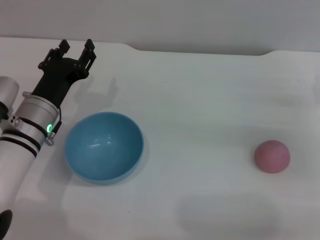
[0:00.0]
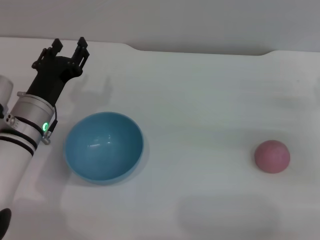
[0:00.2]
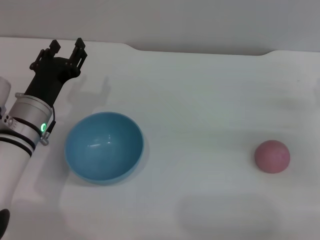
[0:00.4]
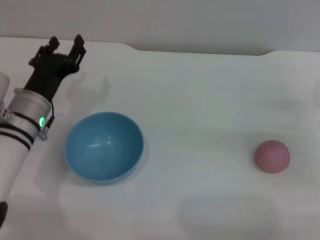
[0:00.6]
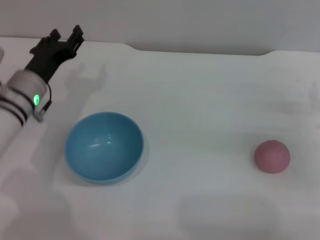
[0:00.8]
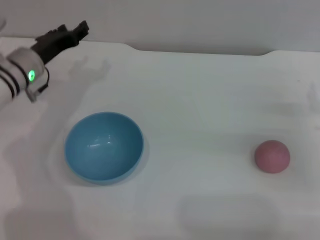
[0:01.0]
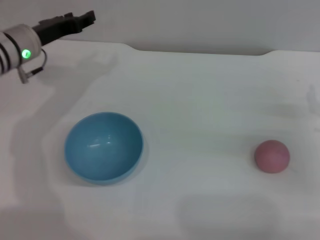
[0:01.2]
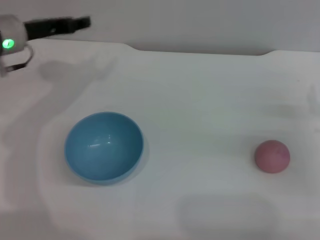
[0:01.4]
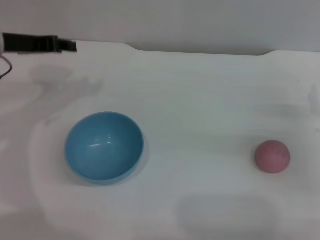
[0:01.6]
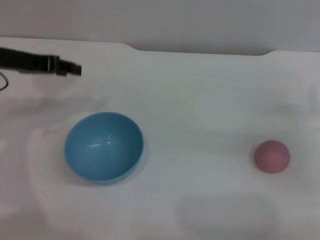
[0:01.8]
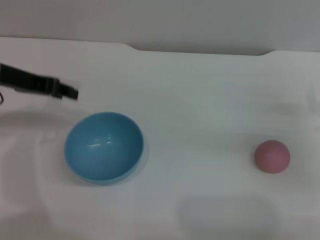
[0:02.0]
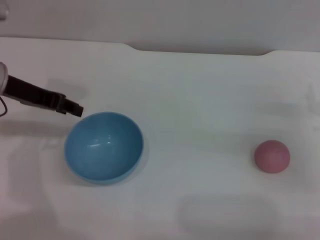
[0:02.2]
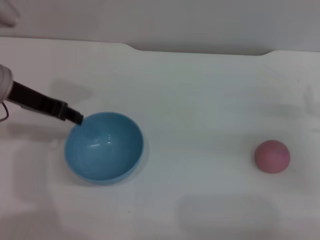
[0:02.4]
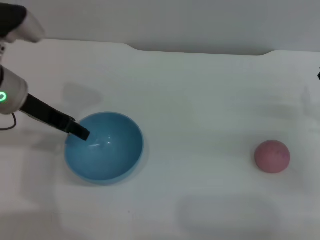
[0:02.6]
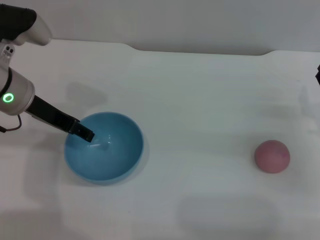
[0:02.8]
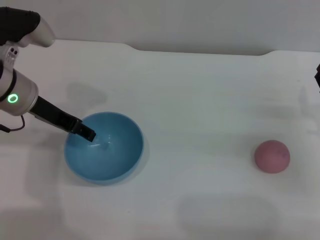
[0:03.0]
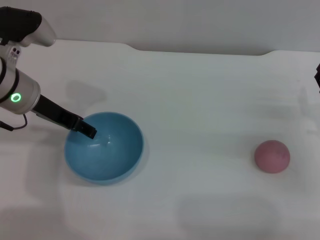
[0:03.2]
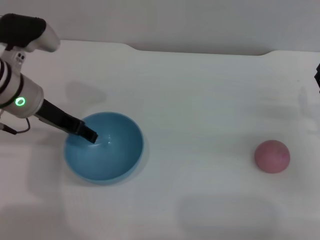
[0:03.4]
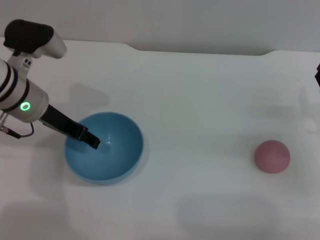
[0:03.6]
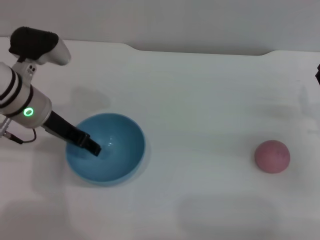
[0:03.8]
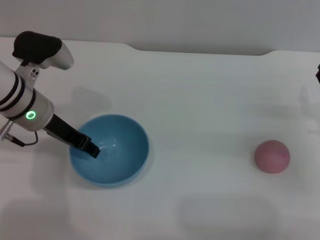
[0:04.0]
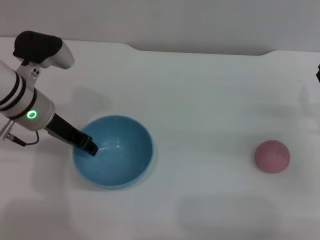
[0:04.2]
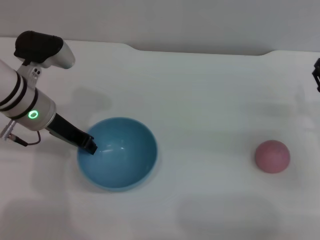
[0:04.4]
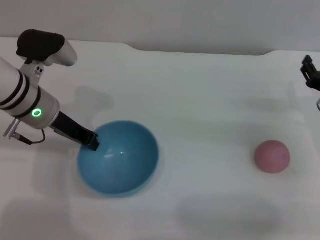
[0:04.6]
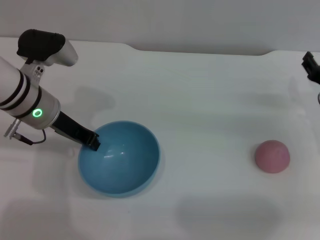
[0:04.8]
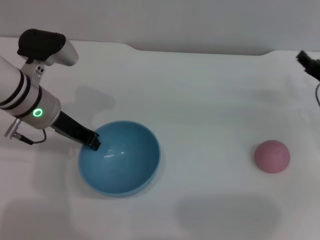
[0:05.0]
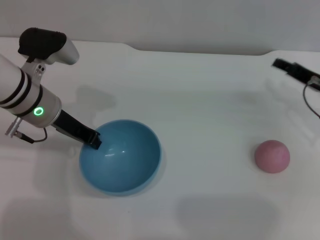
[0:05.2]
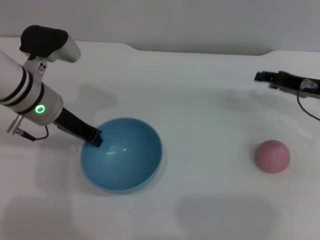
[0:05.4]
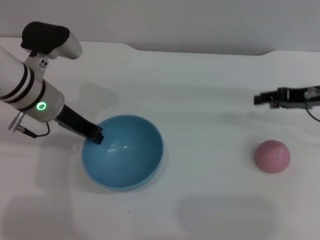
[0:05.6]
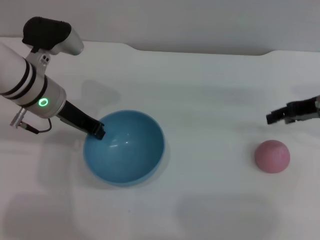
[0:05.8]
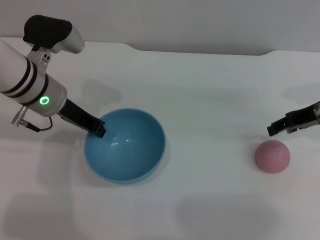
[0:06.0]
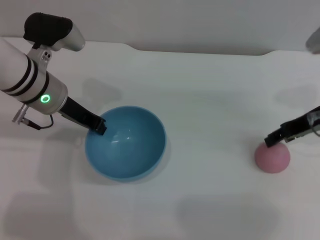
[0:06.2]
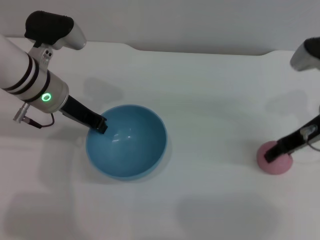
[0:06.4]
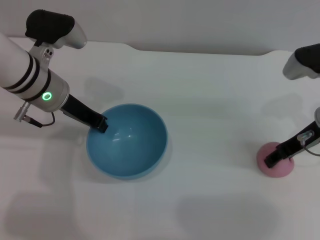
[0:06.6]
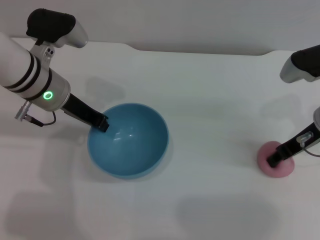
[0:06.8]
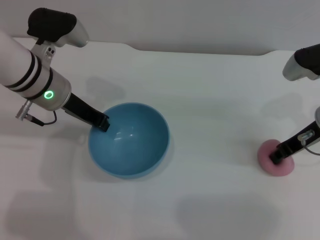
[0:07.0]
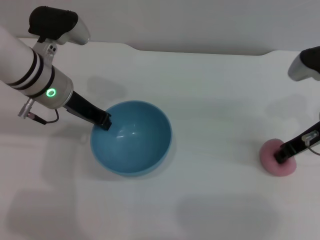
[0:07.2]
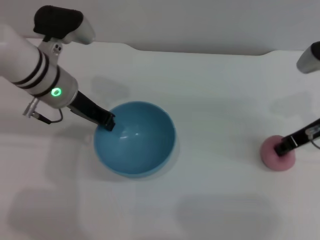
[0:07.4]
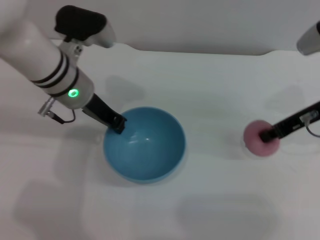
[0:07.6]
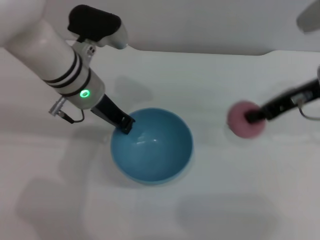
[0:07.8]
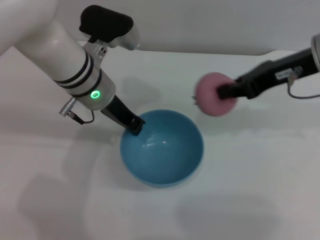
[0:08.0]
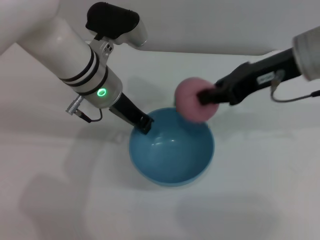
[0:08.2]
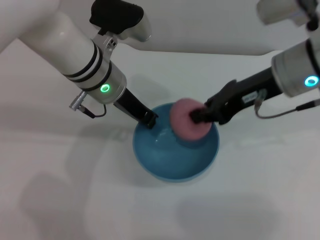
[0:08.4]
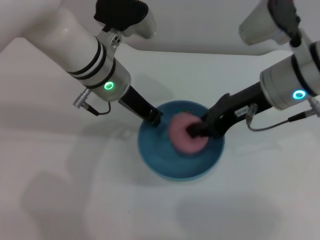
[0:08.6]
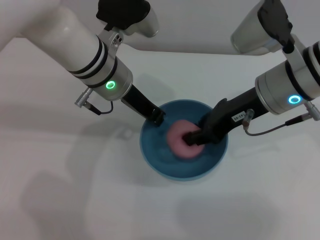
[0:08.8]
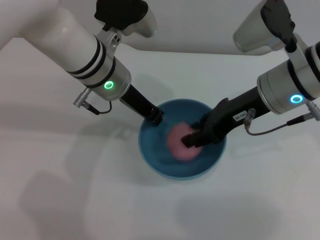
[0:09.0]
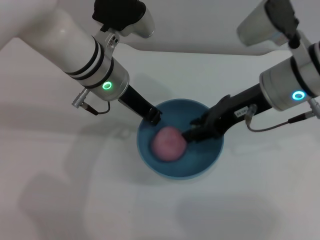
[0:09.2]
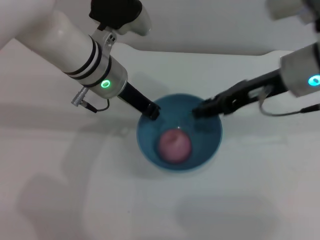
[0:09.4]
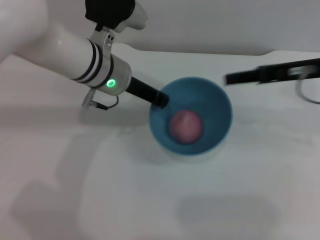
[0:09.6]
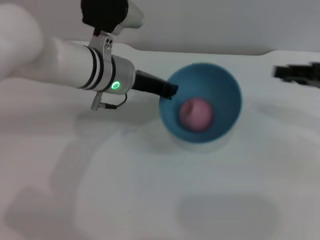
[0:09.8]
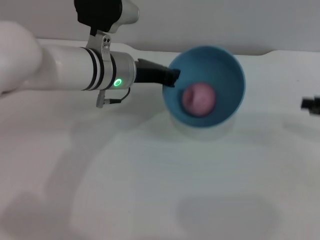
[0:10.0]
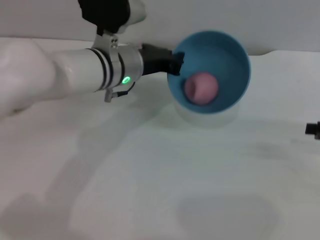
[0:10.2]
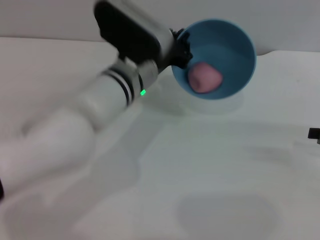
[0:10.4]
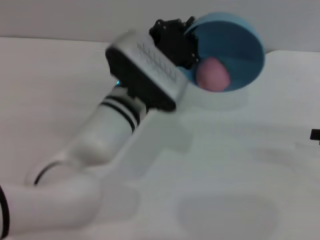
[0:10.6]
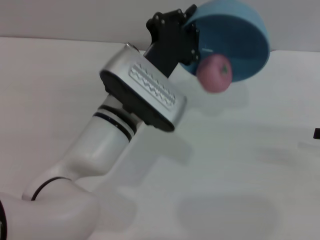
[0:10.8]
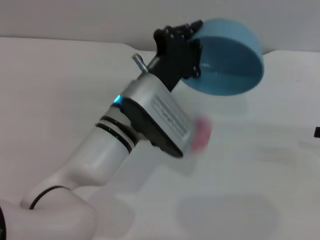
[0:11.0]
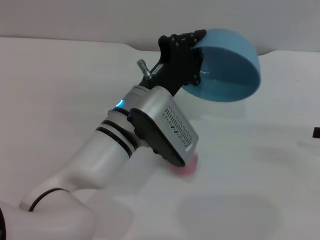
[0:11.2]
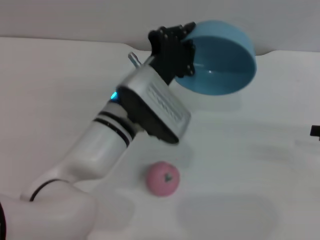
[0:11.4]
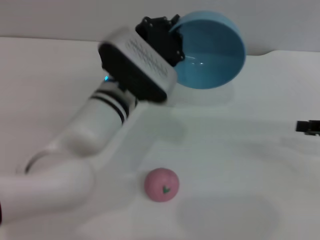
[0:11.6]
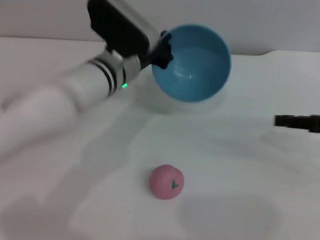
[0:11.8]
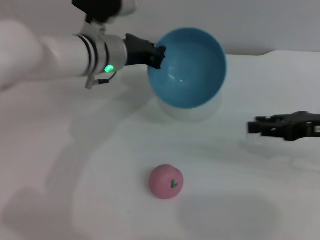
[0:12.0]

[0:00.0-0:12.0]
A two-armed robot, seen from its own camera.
Task of the whole recording: put the peach into the blue bowl and pour it out repeatedly.
Step, 0:00.0 to 0:06.0: Pick up the bowl with the left gripper.
Step, 0:06.2 to 0:07.6: Pick up the peach with the right gripper.
Step, 0:07.8 to 0:09.4: Place the peach into the bowl.
Step, 0:09.6 to 0:11.2: Pour the peach out of bowl.
0:00.0 to 0:01.6: The left gripper heads upward, to the left and forward, covering about 15 cm.
0:01.6 to 0:03.0: The left gripper travels to the right by approximately 5 cm.
0:03.0 to 0:04.4: The left gripper closes its fingers.
0:04.4 to 0:06.0: The right gripper heads upward and forward, covering some 10 cm, while the left gripper closes.
0:06.0 to 0:07.6: The right gripper closes its fingers.
0:07.6 to 0:09.0: The right gripper is displaced to the left by roughly 10 cm, while the left gripper shifts by about 5 cm.
0:09.0 to 0:10.4: The right gripper travels to the right by roughly 20 cm, and opens up, while the left gripper moves some 5 cm.
0:10.4 to 0:12.0: Both grippers travel together to the left, roughly 5 cm.

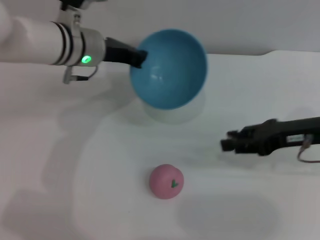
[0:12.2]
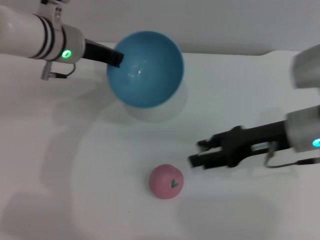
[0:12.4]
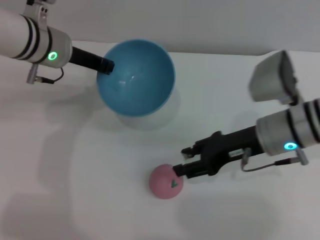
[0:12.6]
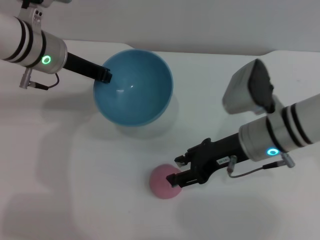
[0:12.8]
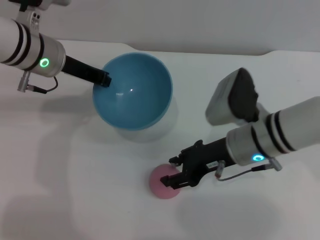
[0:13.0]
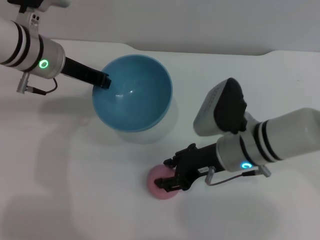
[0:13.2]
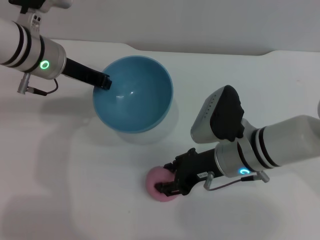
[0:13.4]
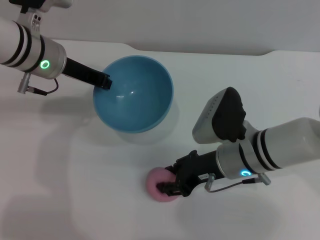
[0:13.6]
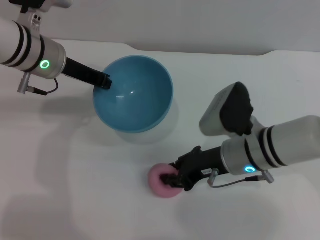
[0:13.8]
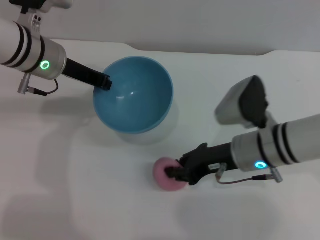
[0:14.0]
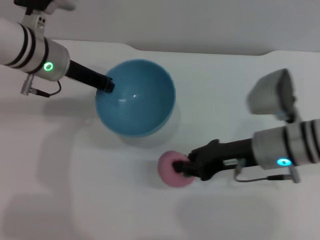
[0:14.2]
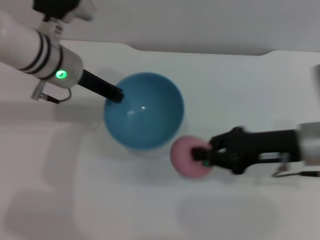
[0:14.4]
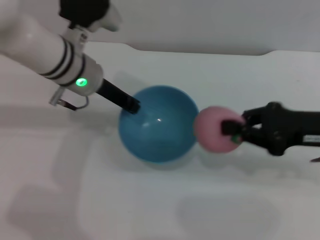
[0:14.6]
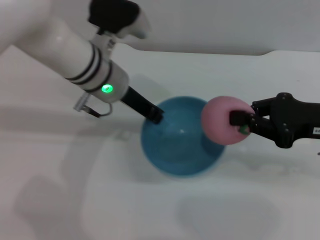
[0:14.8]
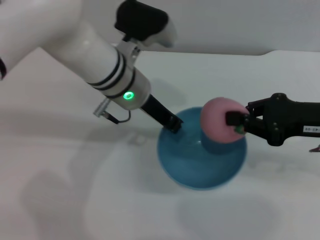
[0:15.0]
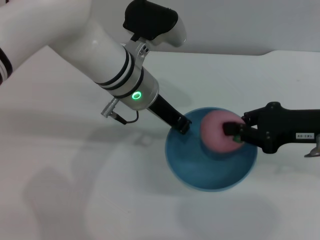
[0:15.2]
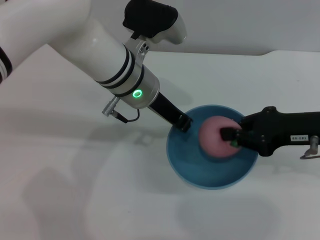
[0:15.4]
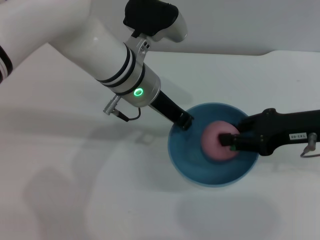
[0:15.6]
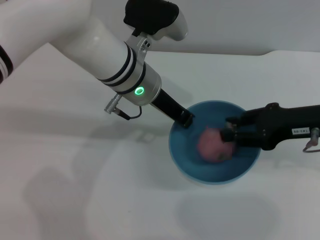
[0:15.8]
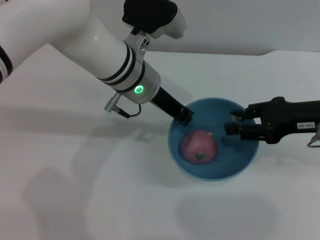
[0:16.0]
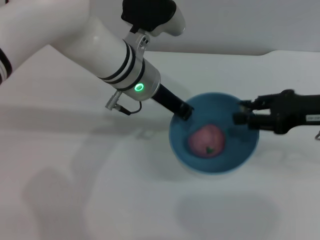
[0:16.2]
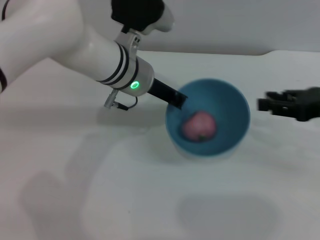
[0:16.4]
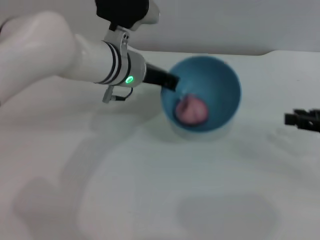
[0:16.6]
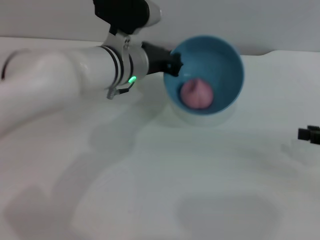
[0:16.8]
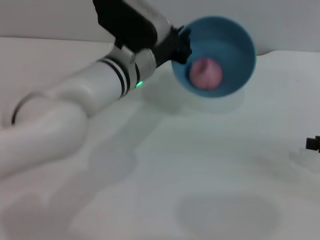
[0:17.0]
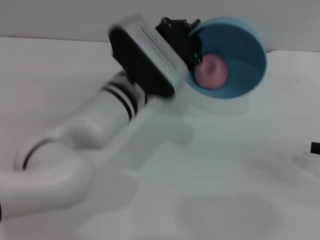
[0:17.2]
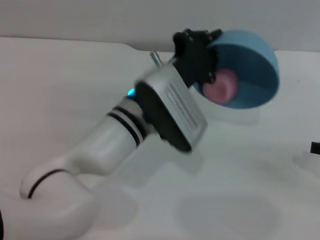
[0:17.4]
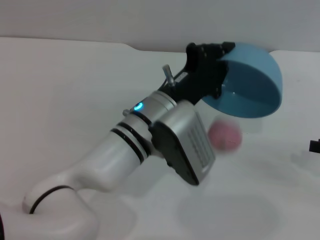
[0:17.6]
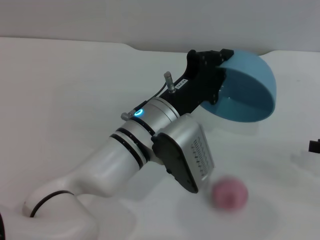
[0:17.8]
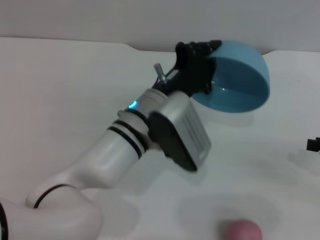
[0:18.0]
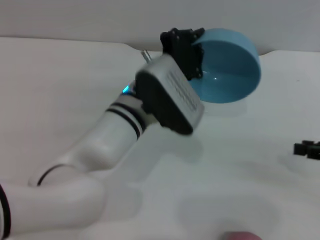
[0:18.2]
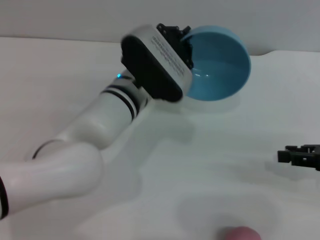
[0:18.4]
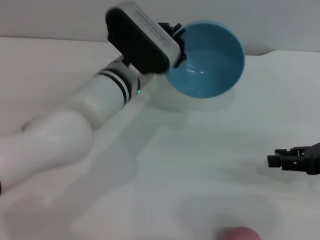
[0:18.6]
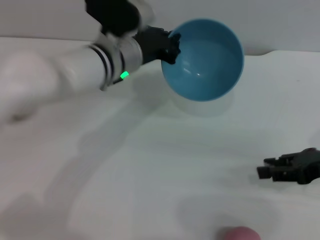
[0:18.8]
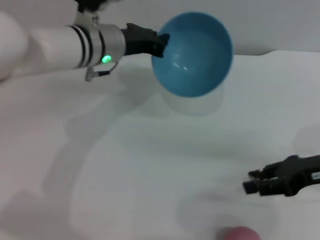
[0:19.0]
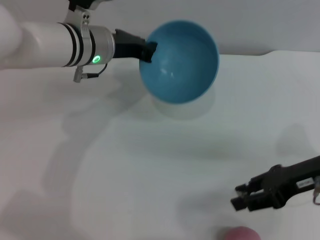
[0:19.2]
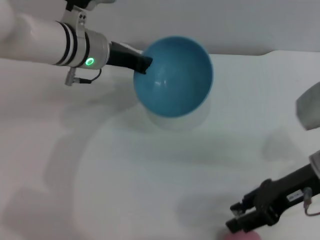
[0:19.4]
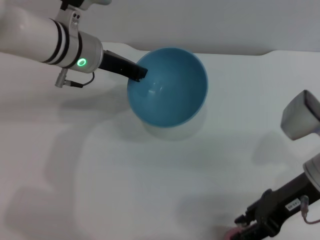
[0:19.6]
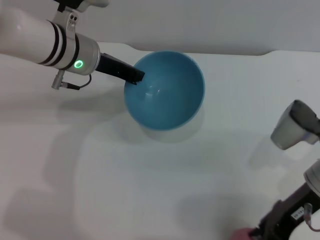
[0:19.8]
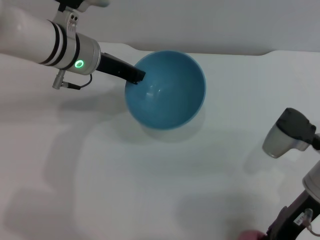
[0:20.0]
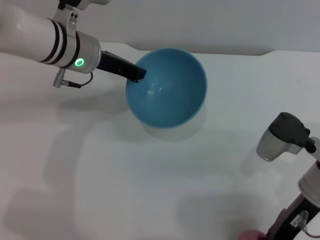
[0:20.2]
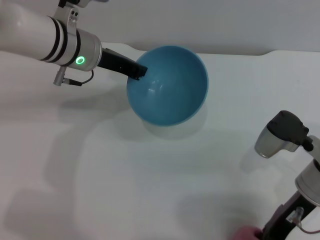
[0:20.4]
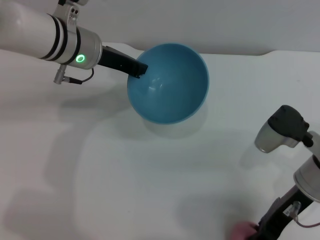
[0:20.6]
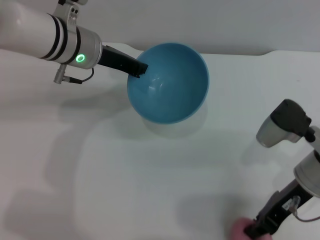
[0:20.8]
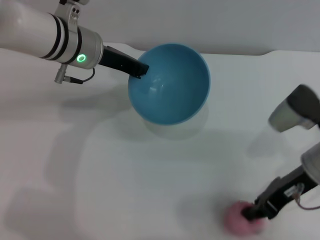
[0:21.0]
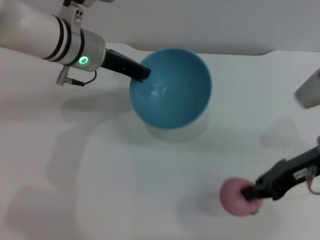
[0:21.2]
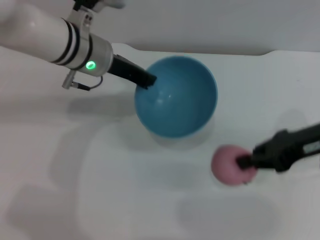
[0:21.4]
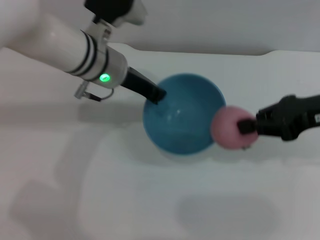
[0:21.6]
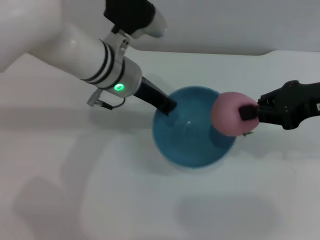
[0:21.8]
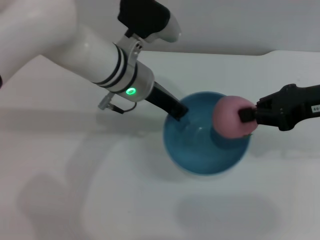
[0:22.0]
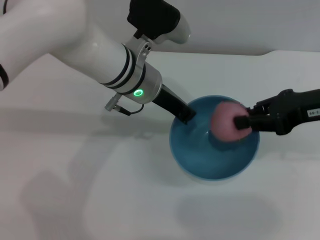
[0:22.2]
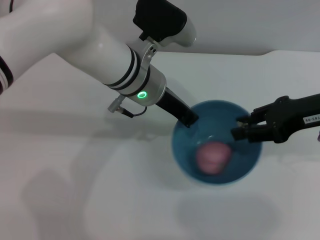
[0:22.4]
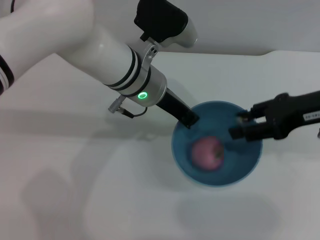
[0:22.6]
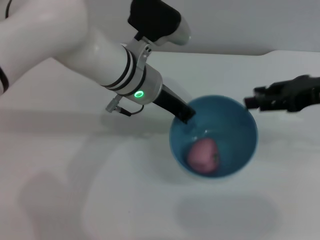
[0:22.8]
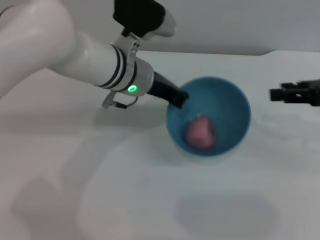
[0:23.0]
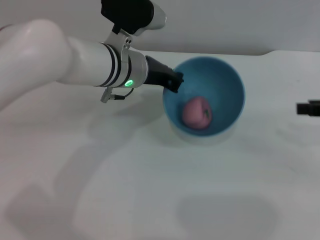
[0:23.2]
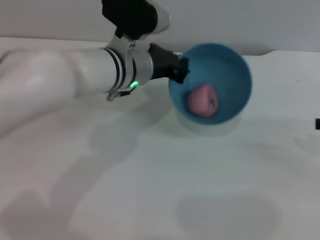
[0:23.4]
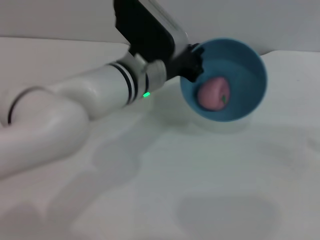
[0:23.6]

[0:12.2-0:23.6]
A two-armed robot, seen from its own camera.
Task of the whole recording: put the peach into the blue bowl and pour it out repeatedly.
Step, 0:12.2 to 0:14.4: Pick up the peach with the right gripper.
Step, 0:14.6 to 0:16.2: Place the peach into the bowl.
Step, 0:16.4 to 0:17.8: Pour the peach out of bowl.
Step, 0:18.2 to 0:21.2: Pick up the peach with the right gripper.
Step, 0:21.4 to 0:22.4: Place the peach into the bowl.
0:12.2 to 0:13.6: The left gripper ends up about 5 cm from where it was. The right gripper heads to the left and downward, covering roughly 15 cm.
0:13.6 to 0:15.0: The right gripper is displaced to the right and upward by roughly 15 cm, and closes its fingers. The left gripper shifts about 10 cm to the right.
0:15.0 to 0:16.4: The right gripper opens.
0:16.4 to 0:17.8: The right gripper is displaced to the right and backward by approximately 10 cm; the left gripper moves backward and downward, some 10 cm.
0:17.8 to 0:19.4: The right gripper travels to the left by approximately 15 cm; the left gripper heads forward, to the left and upward, covering approximately 15 cm.
0:20.8 to 0:22.2: The right gripper shifts some 10 cm upward, while the left gripper is displaced to the right by some 10 cm.
0:22.2 to 0:23.6: The right gripper shifts about 15 cm to the right, and opens its fingers.
